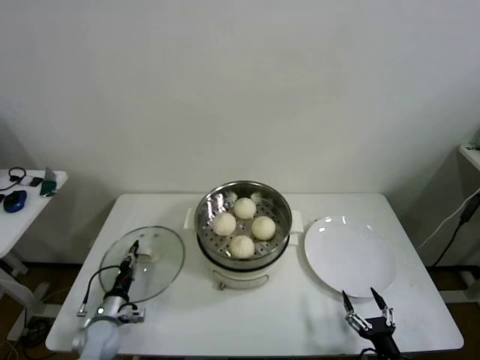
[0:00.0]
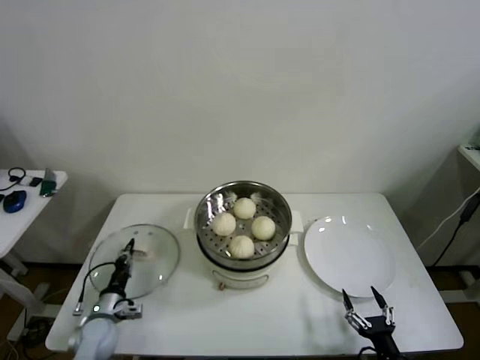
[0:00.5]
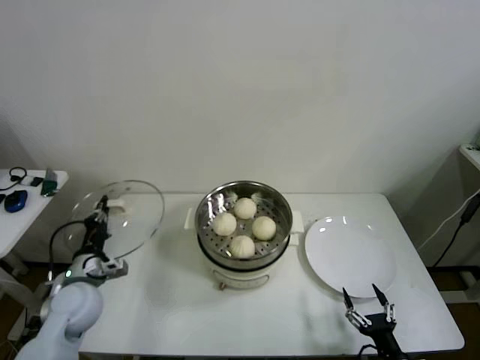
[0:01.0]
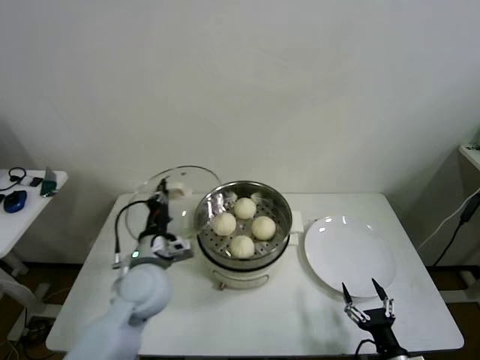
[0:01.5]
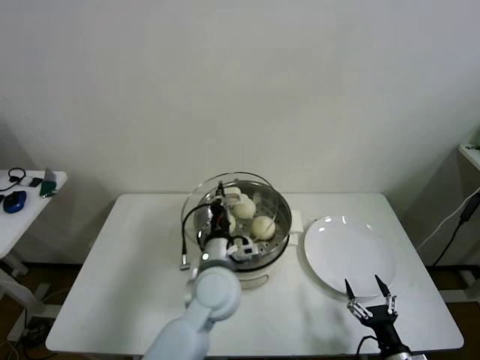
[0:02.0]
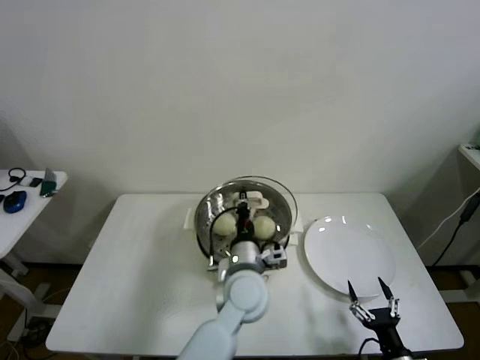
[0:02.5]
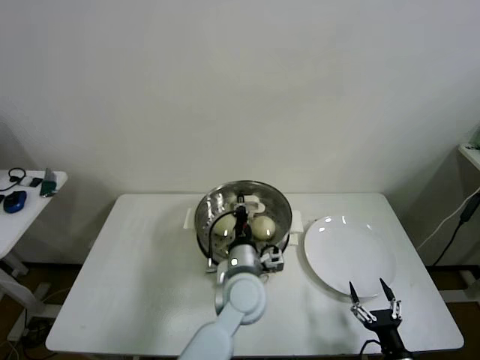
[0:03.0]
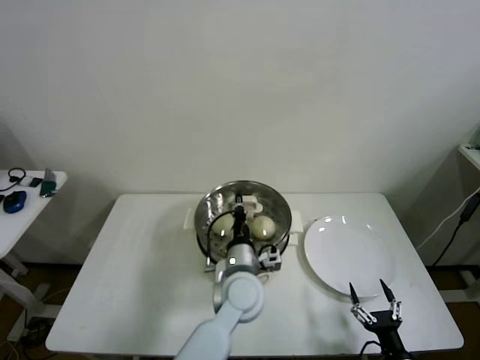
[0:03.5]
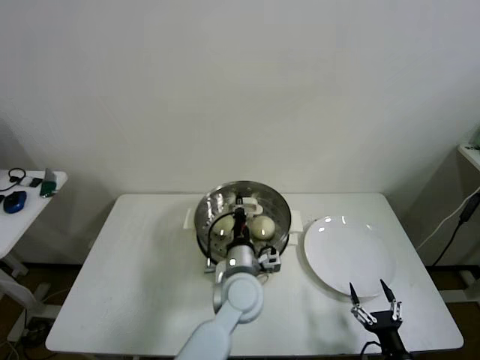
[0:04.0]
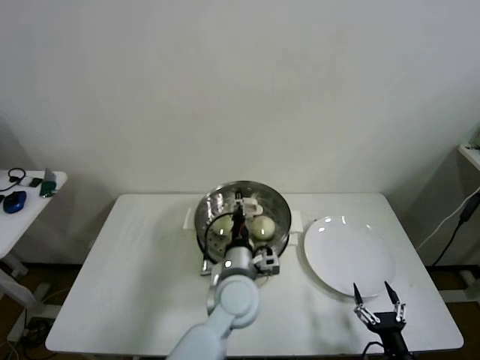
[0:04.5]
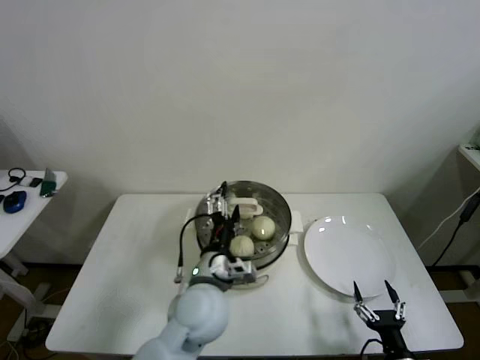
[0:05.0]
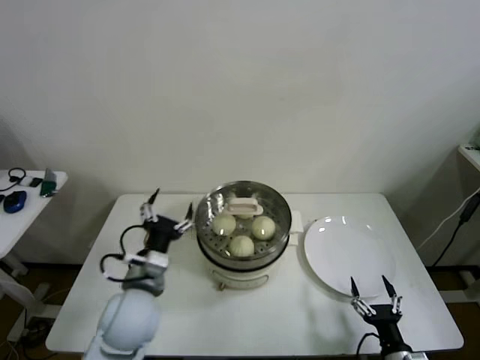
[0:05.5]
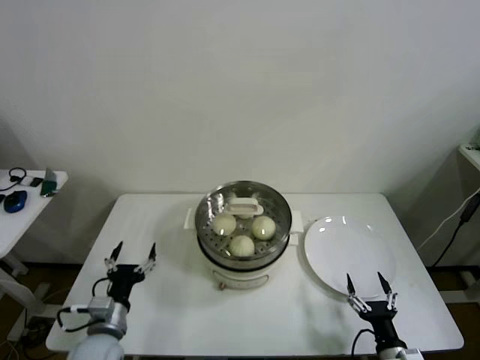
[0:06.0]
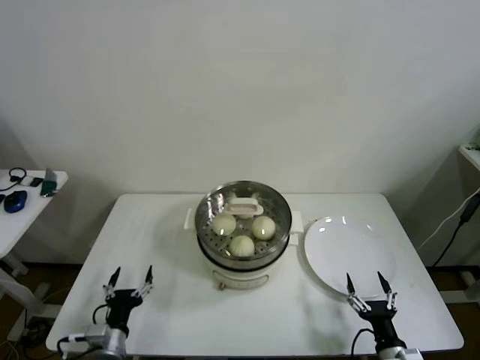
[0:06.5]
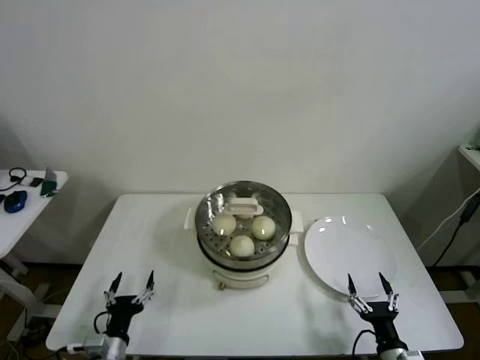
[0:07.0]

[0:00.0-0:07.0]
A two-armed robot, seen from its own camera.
Step, 0:00.5 to 0:04.0: Place the pot lid on the steamer with left gripper.
0:00.0 to 0:02.0: The left gripper travels to the right and upward by about 40 cm.
0:02.0 to 0:03.5: The left gripper moves to the right, about 5 cm.
0:03.5 to 0:05.0: The left gripper moves to the left, approximately 5 cm, and opens up.
0:05.0 to 0:07.0: The left gripper travels to the left, downward and backward by about 30 cm.
